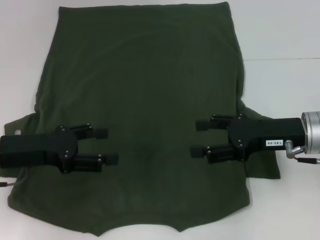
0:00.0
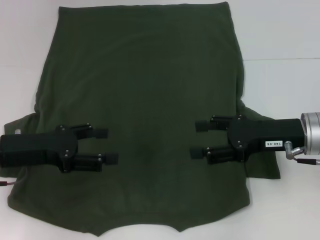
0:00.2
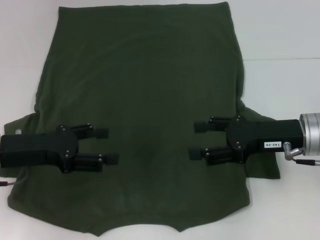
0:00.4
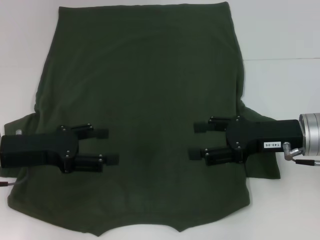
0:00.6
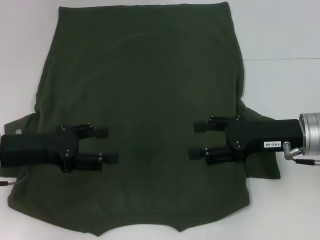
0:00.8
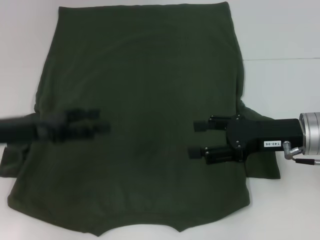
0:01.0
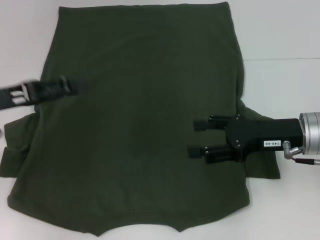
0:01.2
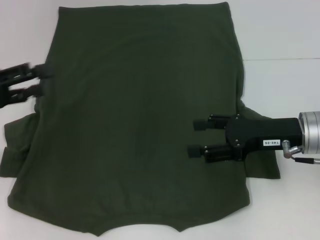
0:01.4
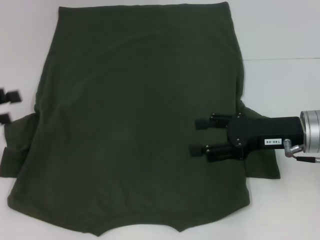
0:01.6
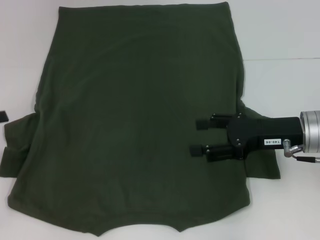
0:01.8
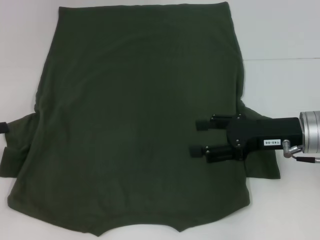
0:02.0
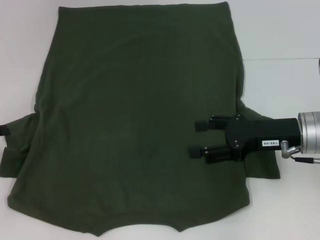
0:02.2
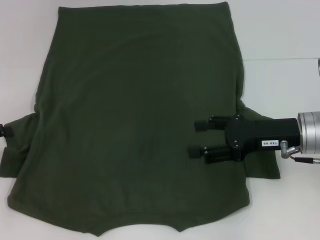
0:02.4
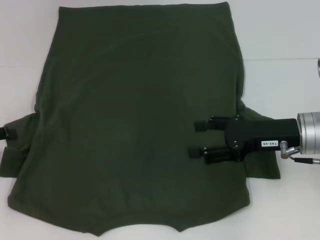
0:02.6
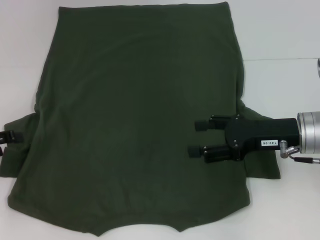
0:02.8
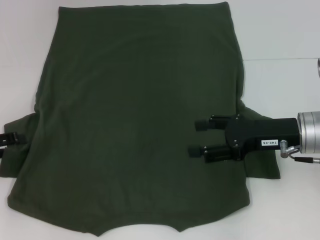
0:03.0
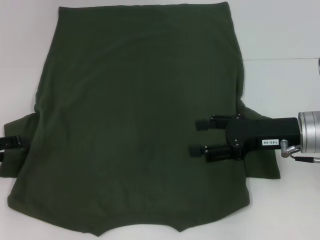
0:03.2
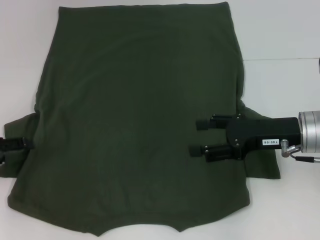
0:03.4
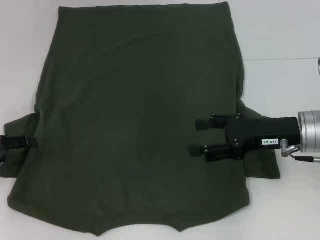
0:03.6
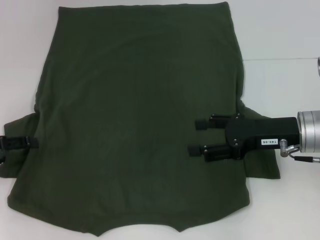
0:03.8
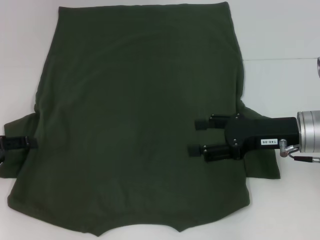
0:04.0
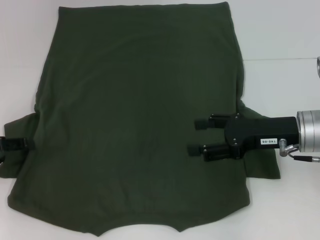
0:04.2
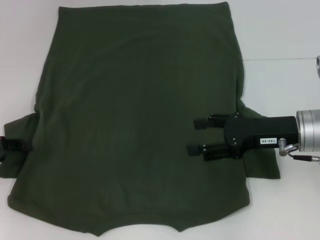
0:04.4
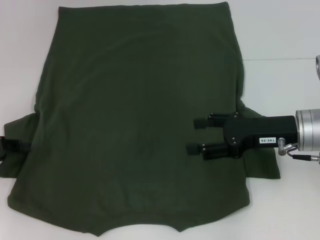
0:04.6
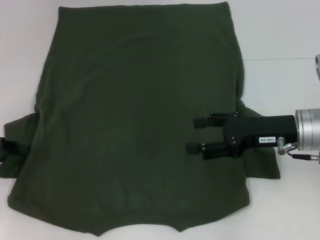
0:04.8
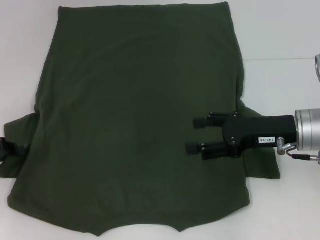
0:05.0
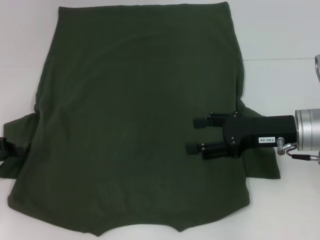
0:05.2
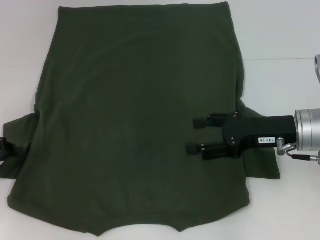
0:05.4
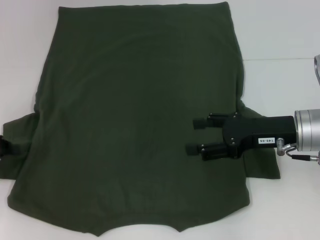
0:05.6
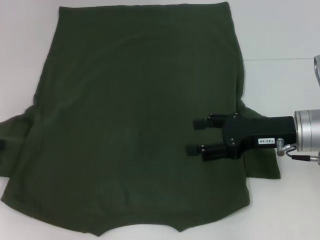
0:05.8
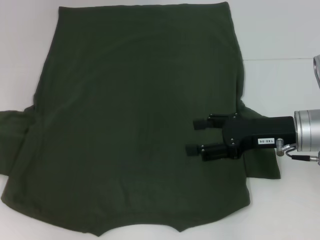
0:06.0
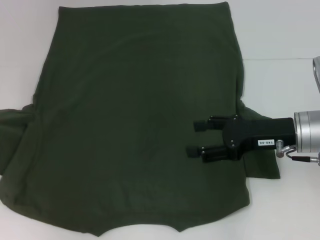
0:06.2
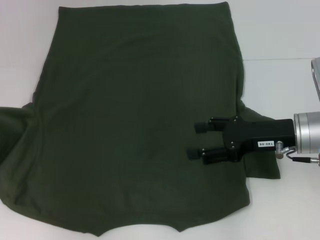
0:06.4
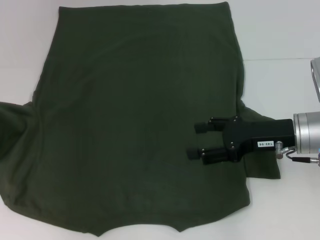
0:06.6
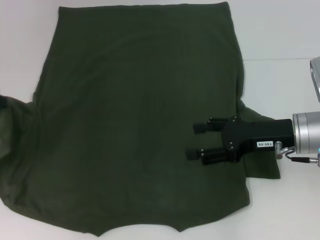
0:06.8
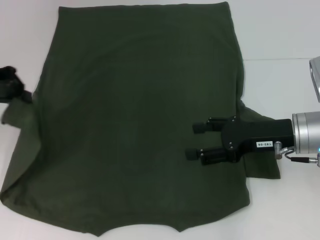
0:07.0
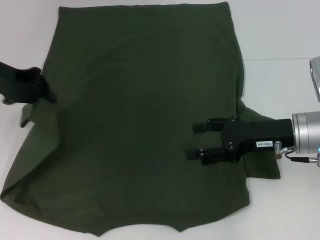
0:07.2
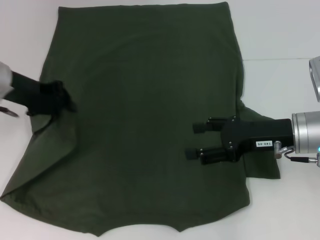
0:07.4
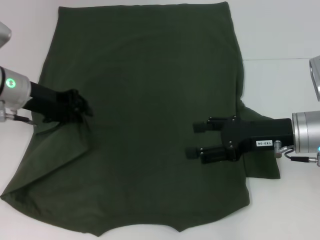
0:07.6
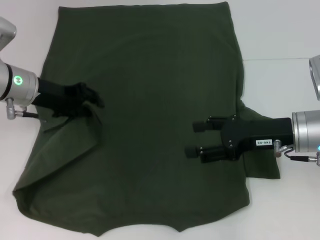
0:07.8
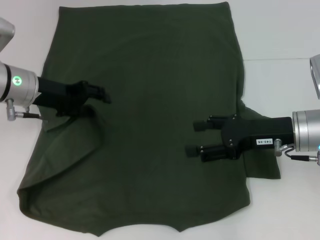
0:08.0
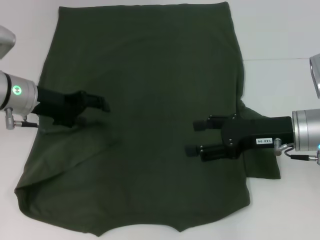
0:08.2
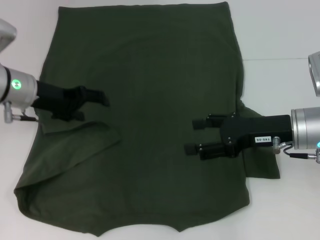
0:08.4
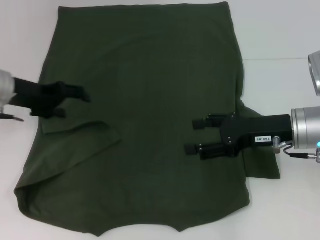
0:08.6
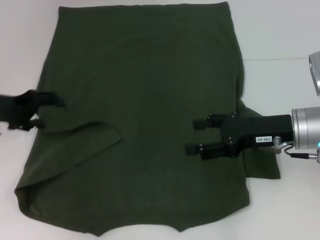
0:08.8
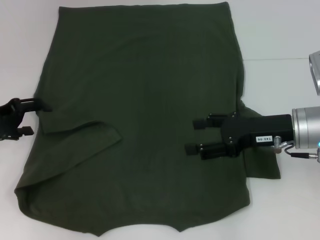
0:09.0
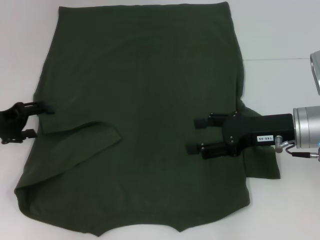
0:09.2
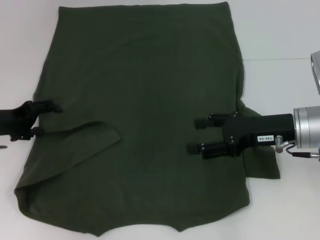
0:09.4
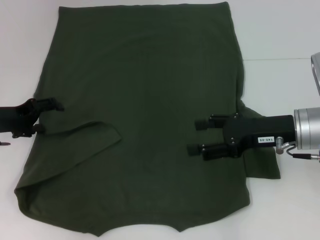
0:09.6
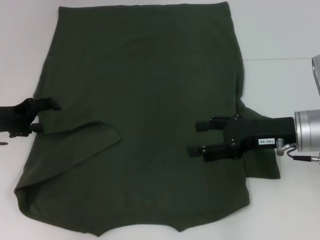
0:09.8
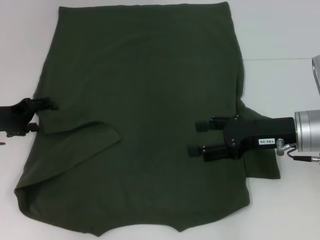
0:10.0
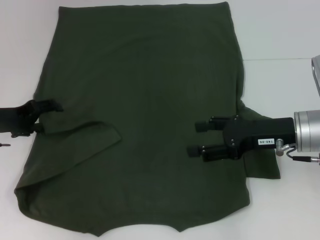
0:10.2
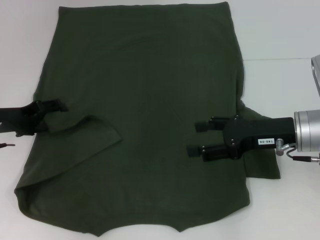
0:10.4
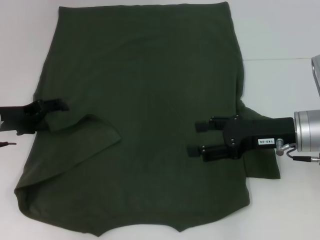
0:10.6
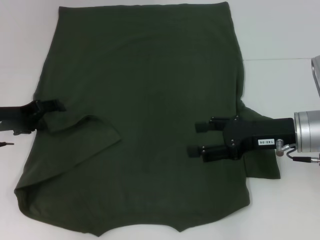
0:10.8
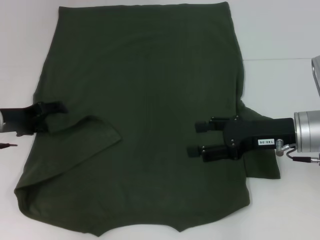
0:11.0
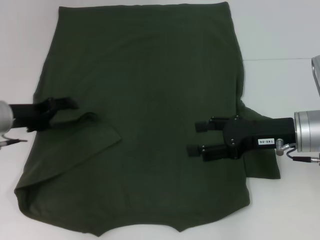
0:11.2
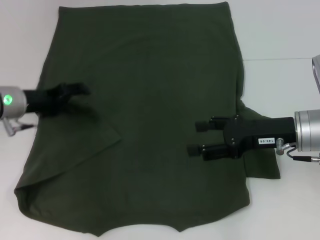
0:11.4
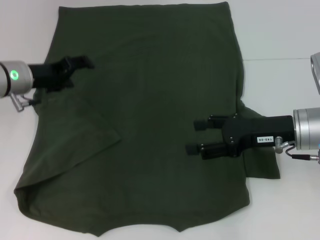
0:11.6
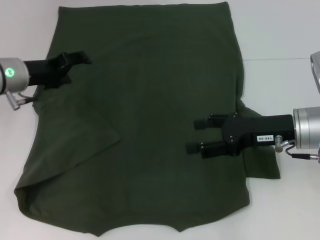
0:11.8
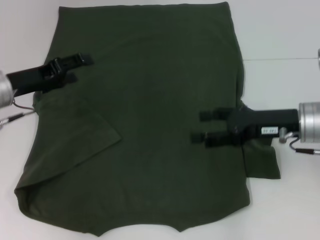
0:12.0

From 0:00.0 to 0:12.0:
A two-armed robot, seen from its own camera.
Step, from 0:00.0 to 0:11.4: Fold the bottom left sleeve with your left hand.
From 0:00.0 to 0:01.6: The left gripper goes some 10 cm to the left.
From 0:01.6 to 0:03.0: The left gripper shifts approximately 5 cm downward.
From 0:03.0 to 0:04.4: The grippers make only small movements.
From 0:04.4 to 0:06.0: The left gripper travels upward by some 5 cm, and closes its fingers.
From 0:06.0 to 0:07.6: The left gripper is displaced to the right and forward by some 15 cm.
From 0:07.6 to 0:09.0: The left gripper travels to the left and backward by about 10 cm, and opens.
From 0:09.0 to 0:10.4: The grippers move only a little.

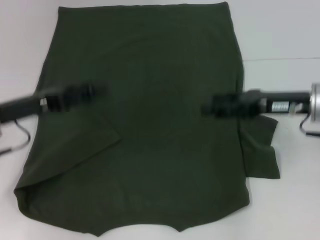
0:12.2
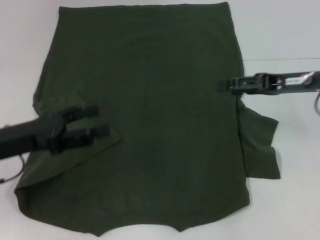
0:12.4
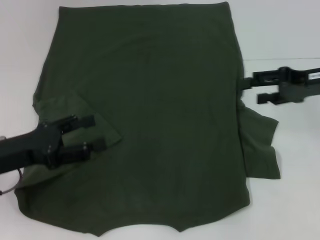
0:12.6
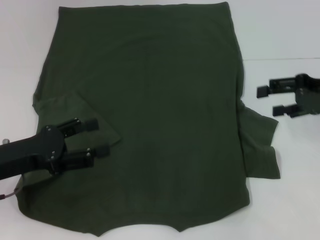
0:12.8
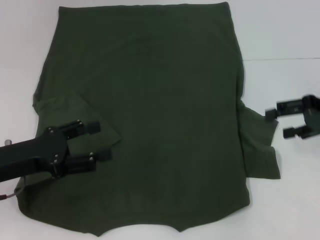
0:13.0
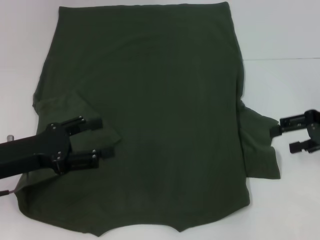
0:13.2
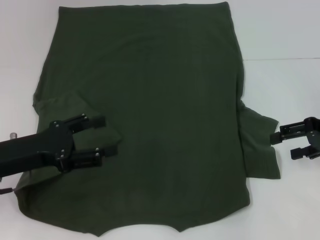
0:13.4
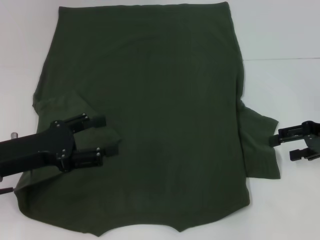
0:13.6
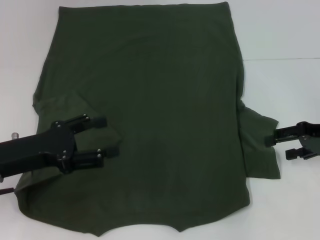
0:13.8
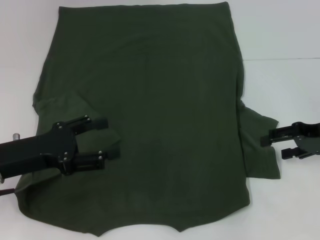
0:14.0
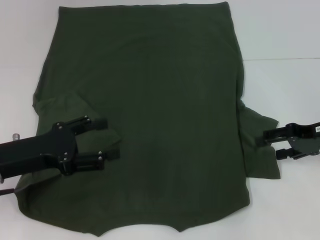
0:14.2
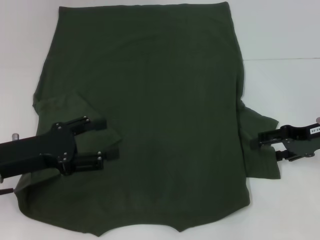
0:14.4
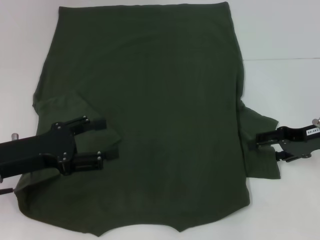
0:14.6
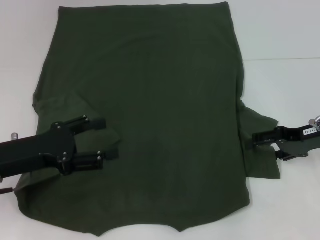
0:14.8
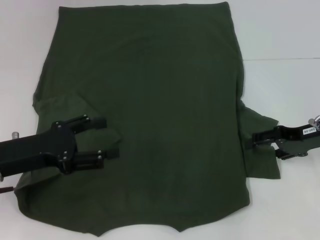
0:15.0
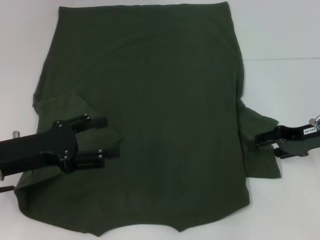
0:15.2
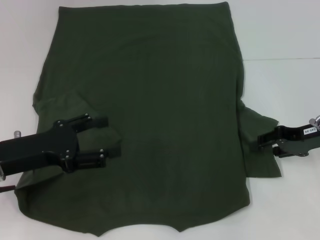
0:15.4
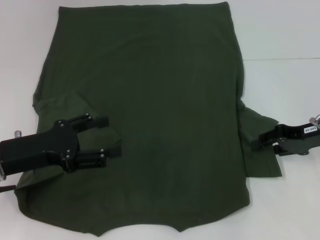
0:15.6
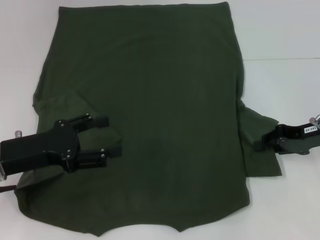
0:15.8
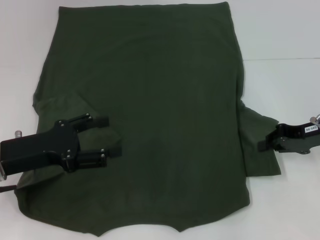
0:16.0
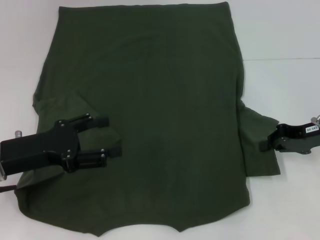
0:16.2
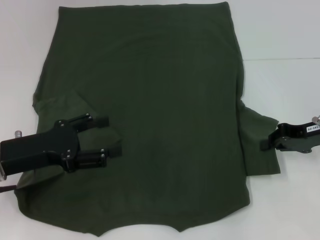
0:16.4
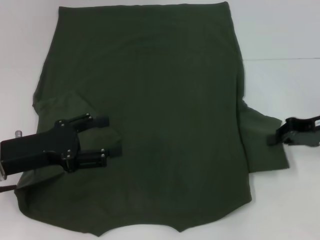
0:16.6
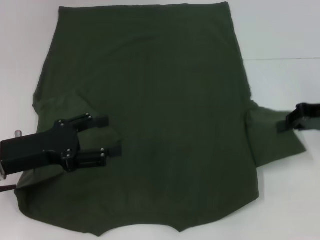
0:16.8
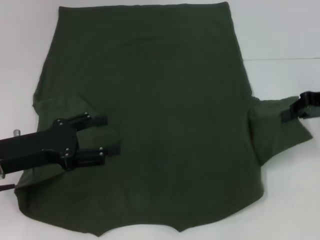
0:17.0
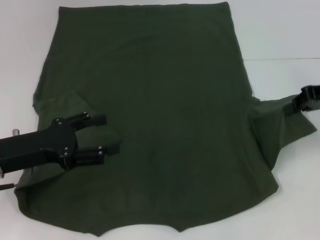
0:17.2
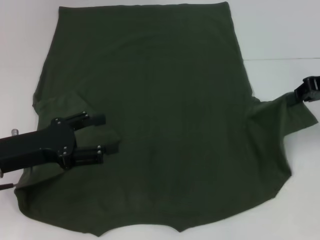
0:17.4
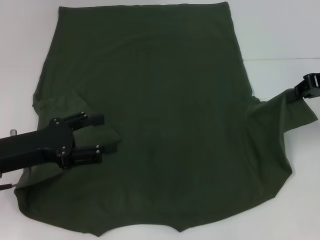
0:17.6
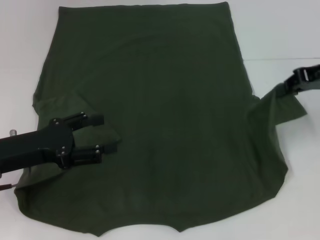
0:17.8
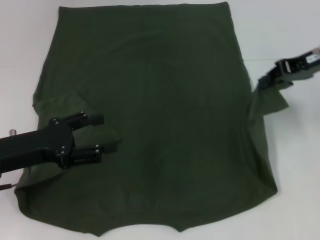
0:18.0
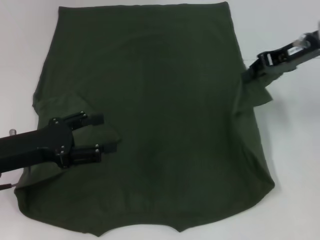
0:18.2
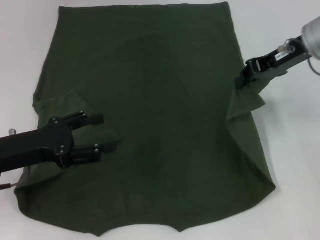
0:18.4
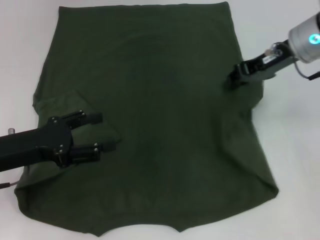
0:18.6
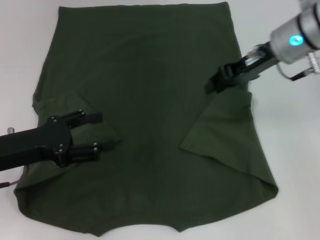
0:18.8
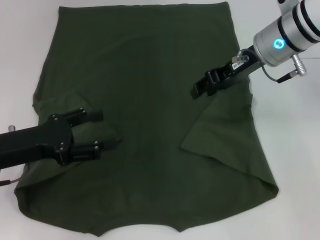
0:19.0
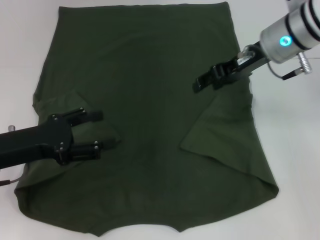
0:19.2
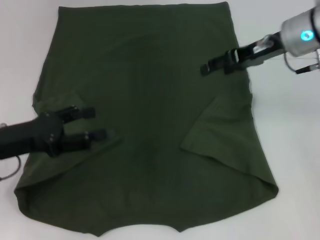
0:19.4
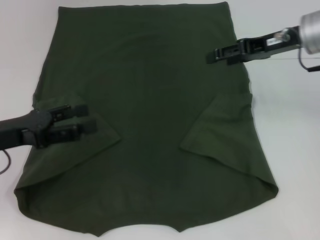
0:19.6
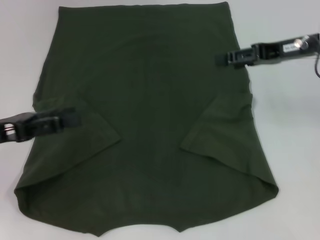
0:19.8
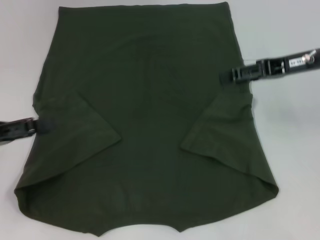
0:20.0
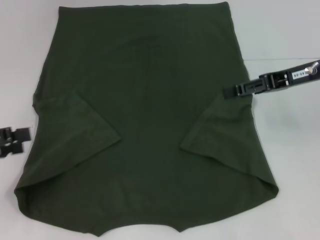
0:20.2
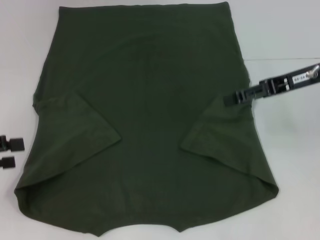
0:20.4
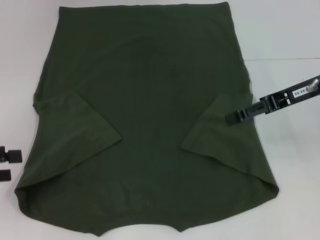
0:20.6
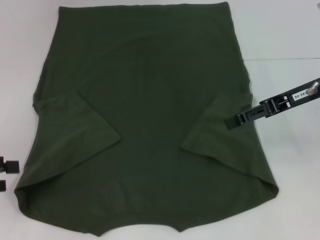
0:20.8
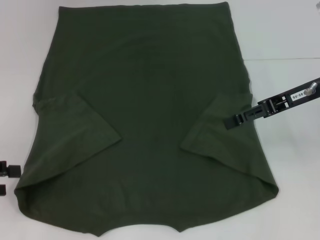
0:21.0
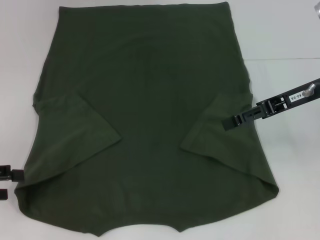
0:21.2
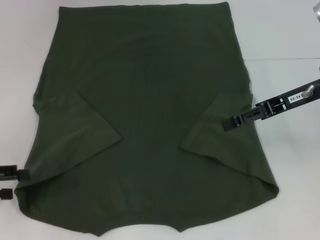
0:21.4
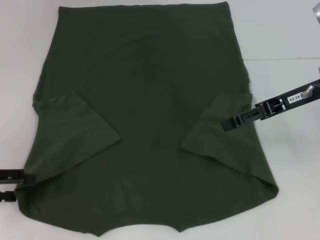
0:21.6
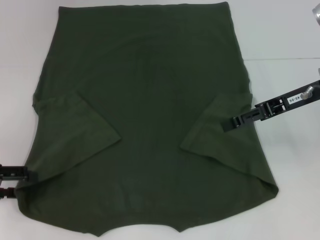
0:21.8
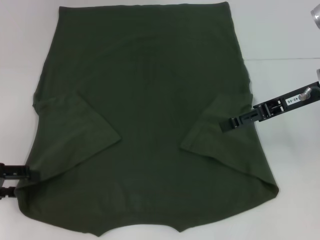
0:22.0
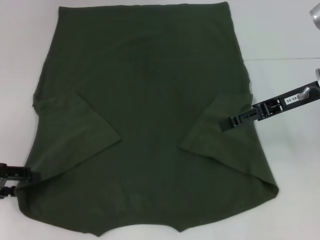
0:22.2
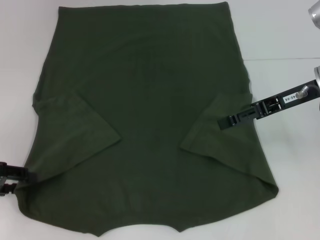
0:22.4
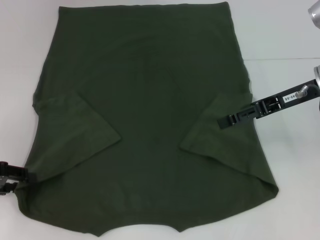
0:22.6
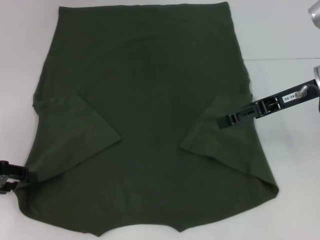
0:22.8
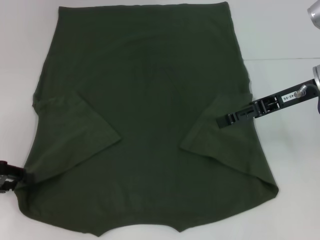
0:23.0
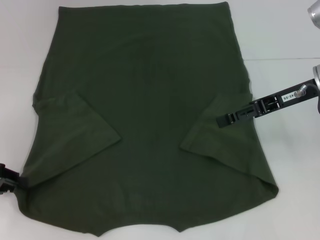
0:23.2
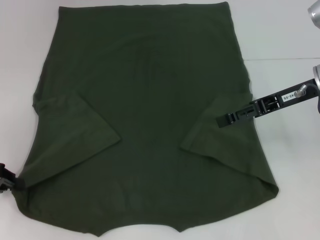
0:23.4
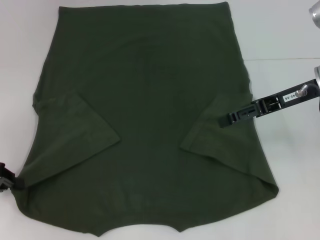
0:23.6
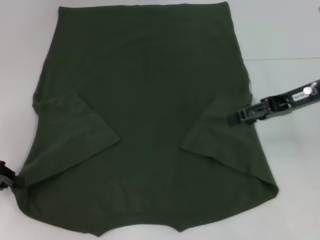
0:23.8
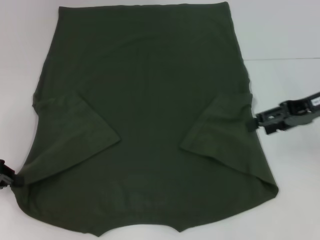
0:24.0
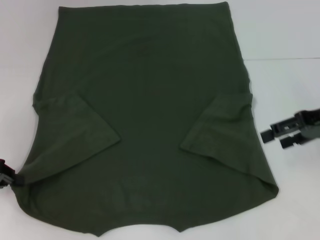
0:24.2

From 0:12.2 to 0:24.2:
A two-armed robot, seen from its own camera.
Step, from 0:12.2 to 0:18.6: Fold the bottom right sleeve with your right hand.
Step, from 0:18.8 to 0:23.8: Grab the bottom left corner with your left hand.
From 0:12.2 to 0:13.8: The right gripper goes approximately 10 cm to the right; the left gripper goes some 5 cm backward.
From 0:13.8 to 0:15.2: There are only small adjustments of the grippers.
From 0:15.2 to 0:16.6: The right gripper closes its fingers.
From 0:16.6 to 0:18.2: The right gripper moves upward, forward and to the left, roughly 15 cm.
From 0:18.2 to 0:19.8: The left gripper shifts by approximately 5 cm. Meanwhile the right gripper moves about 10 cm to the left and comes back, and opens its fingers.
From 0:19.8 to 0:21.2: The left gripper shifts some 10 cm to the left.
From 0:21.2 to 0:22.6: The grippers move only a little.
From 0:22.6 to 0:24.2: The left gripper closes up, while the right gripper goes about 5 cm to the right.
